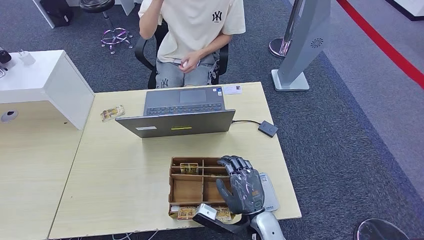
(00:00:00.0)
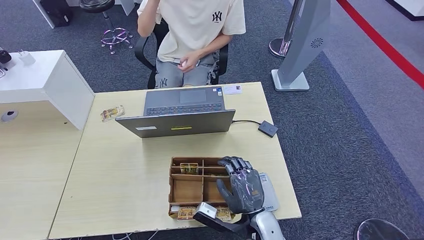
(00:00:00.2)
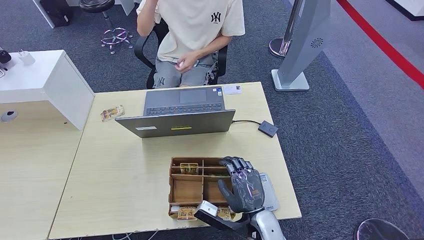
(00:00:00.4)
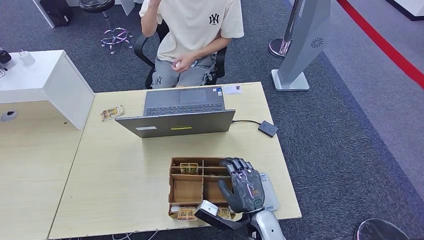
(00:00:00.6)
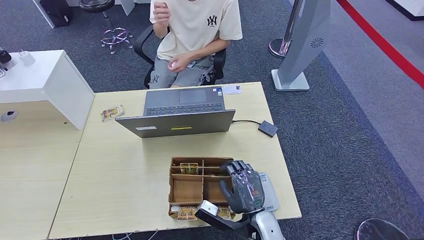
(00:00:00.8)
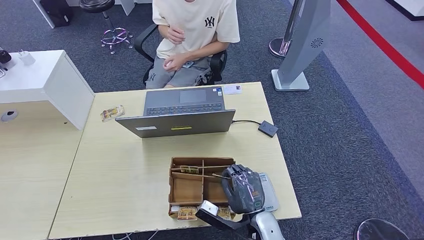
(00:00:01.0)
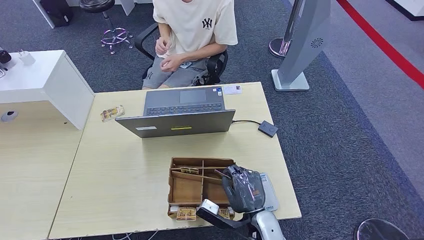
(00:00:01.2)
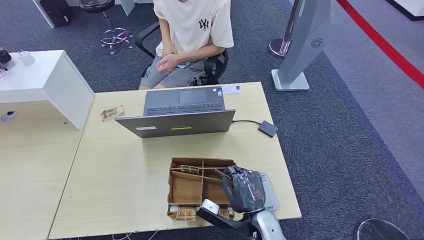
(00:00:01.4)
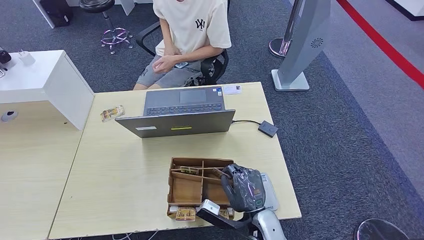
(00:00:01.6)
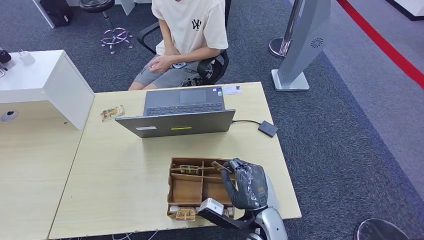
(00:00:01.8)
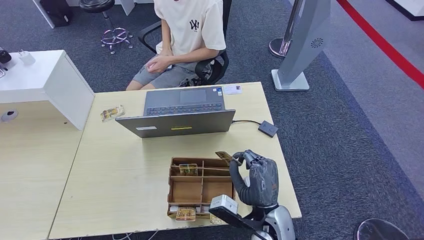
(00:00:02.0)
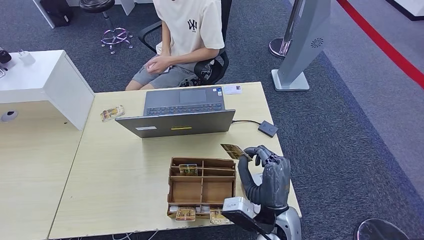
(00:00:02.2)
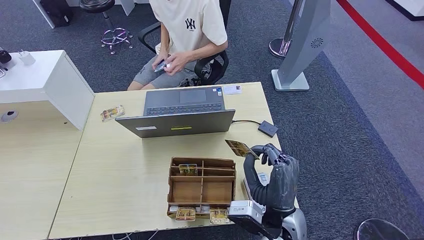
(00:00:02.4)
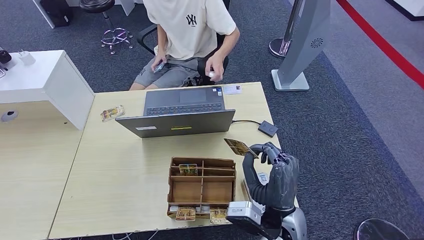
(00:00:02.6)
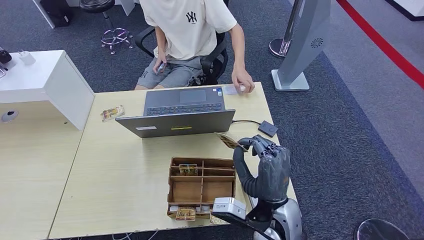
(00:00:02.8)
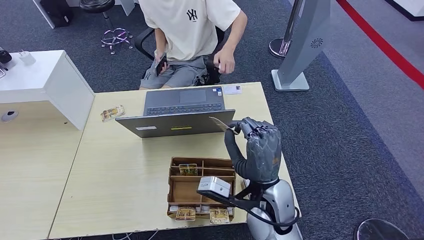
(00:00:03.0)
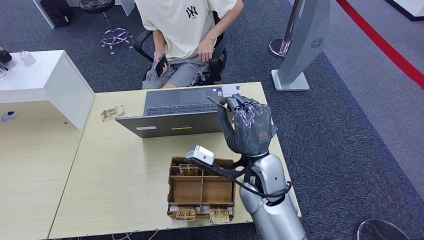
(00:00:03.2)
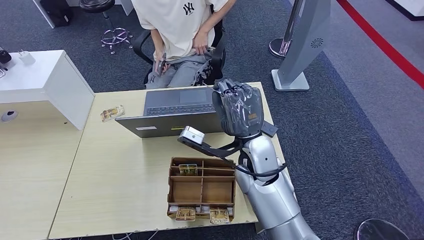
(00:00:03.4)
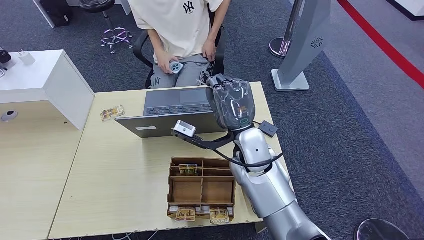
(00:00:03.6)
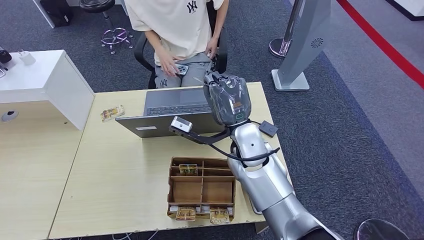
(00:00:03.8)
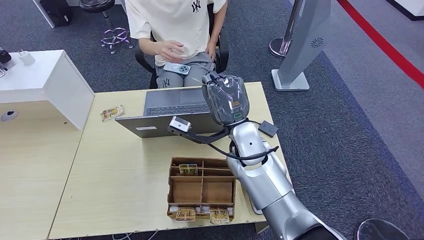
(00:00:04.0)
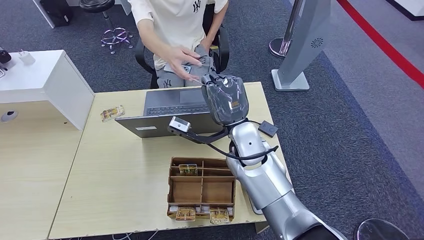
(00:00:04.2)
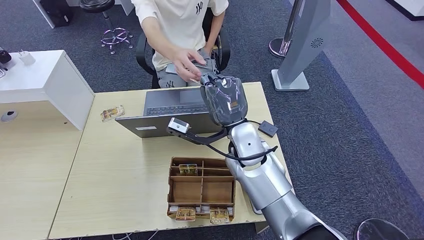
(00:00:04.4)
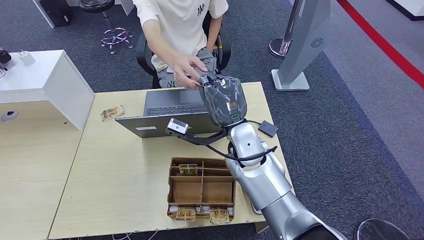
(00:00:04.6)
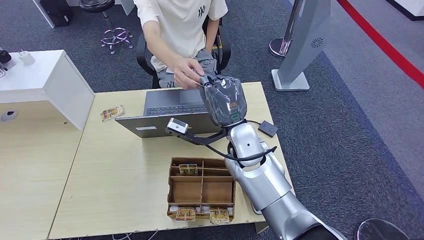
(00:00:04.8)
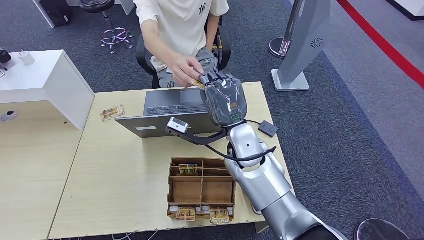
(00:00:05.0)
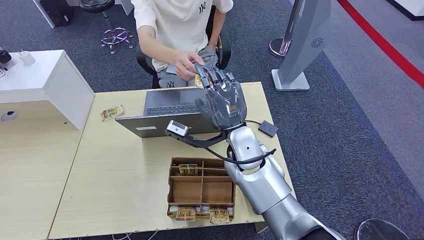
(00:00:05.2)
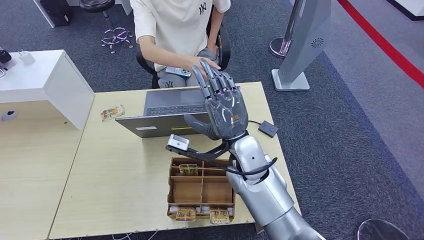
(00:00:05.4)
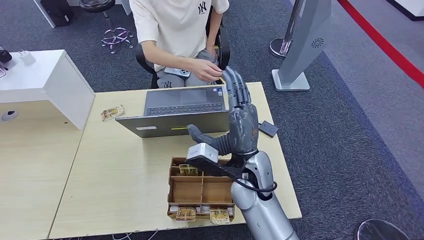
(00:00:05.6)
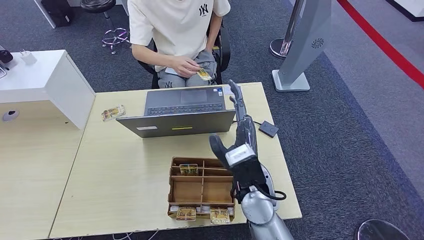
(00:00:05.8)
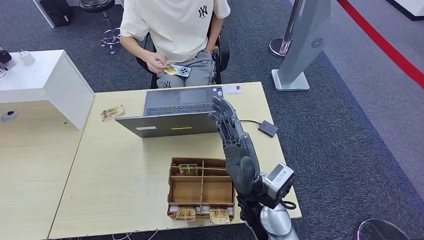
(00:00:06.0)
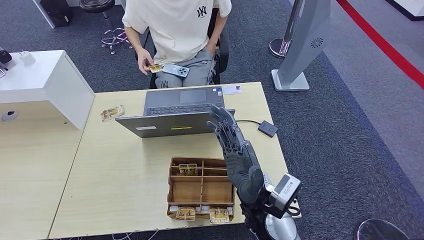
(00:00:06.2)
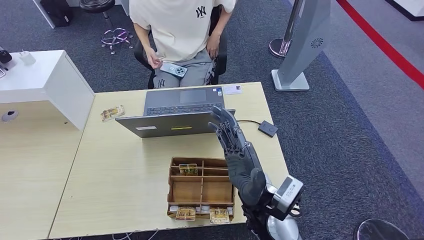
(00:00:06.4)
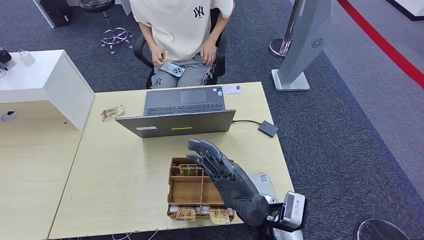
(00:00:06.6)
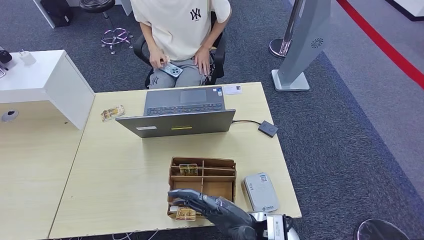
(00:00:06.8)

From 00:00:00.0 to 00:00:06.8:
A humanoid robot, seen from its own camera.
Step, from 00:00:00.8 to 00:00:03.0: Pick up the room key from the key card box.
Step, from 00:00:03.2 to 00:00:06.8: Hand the room key to the person.
From 00:00:00.0 to 00:00:01.4: There are only small adjustments of the hands.
From 00:00:01.4 to 00:00:02.8: The right hand goes some 10 cm upward.
From 00:00:02.8 to 00:00:04.0: The right hand shifts approximately 15 cm forward.
From 00:00:04.0 to 00:00:05.4: There are only small adjustments of the hands.
From 00:00:05.4 to 00:00:06.8: The right hand travels backward and downward by approximately 15 cm.
